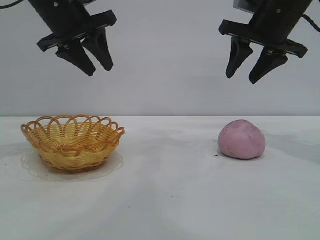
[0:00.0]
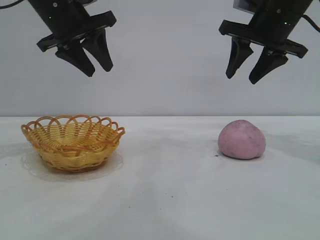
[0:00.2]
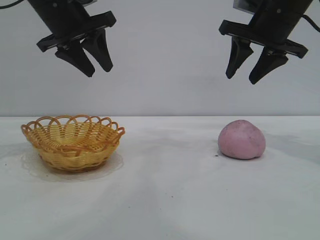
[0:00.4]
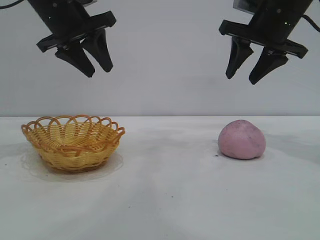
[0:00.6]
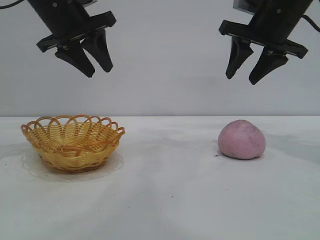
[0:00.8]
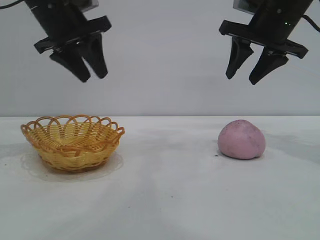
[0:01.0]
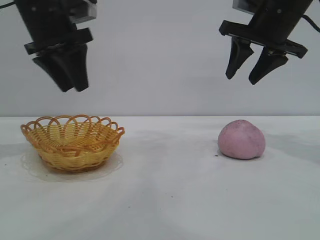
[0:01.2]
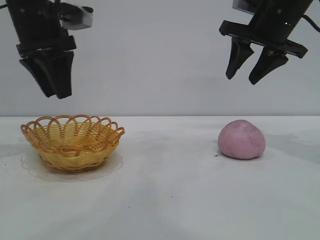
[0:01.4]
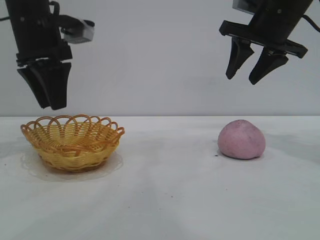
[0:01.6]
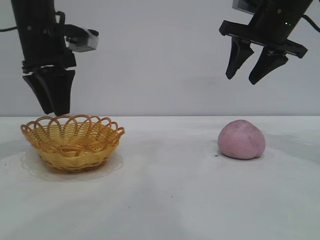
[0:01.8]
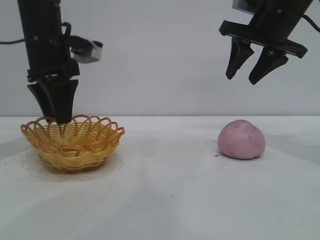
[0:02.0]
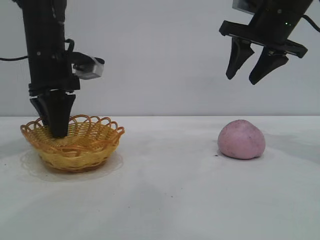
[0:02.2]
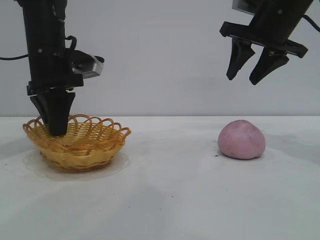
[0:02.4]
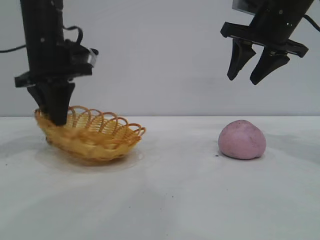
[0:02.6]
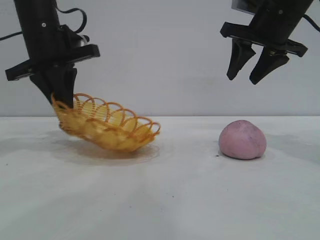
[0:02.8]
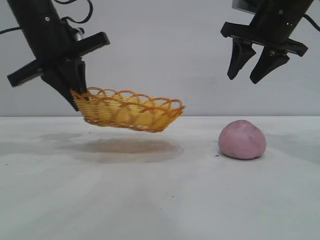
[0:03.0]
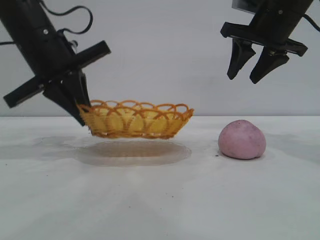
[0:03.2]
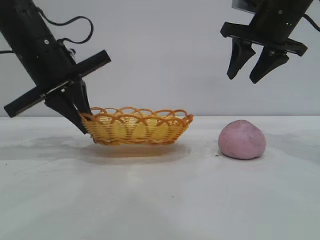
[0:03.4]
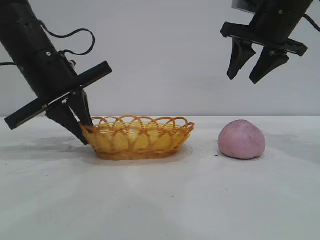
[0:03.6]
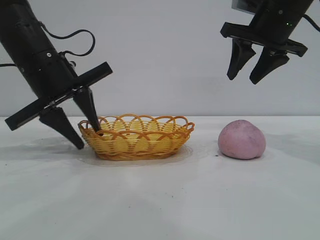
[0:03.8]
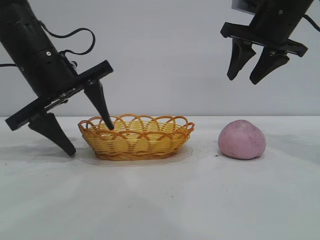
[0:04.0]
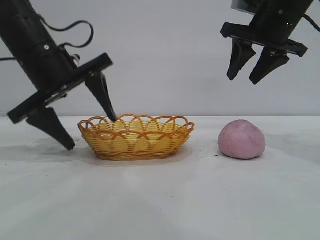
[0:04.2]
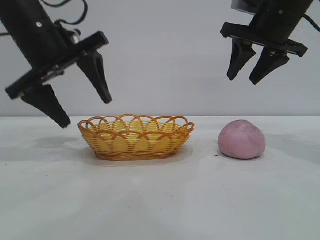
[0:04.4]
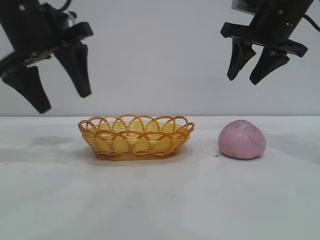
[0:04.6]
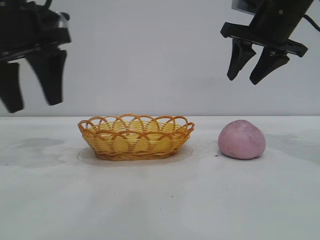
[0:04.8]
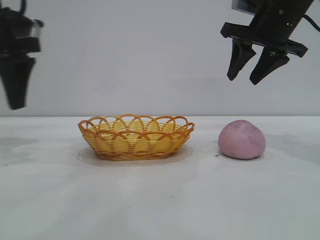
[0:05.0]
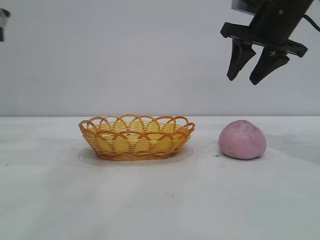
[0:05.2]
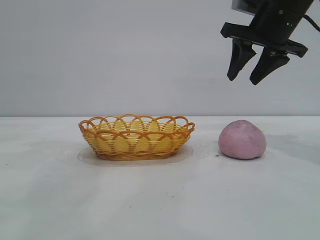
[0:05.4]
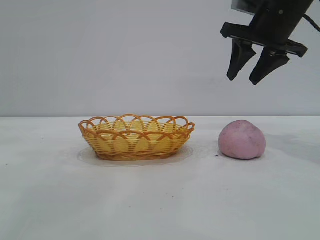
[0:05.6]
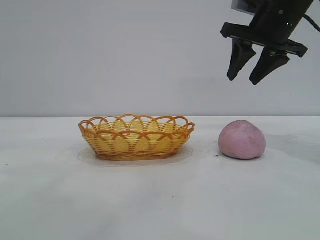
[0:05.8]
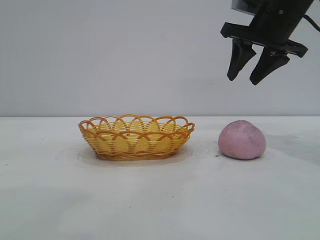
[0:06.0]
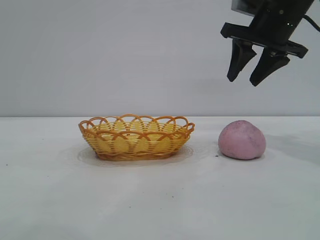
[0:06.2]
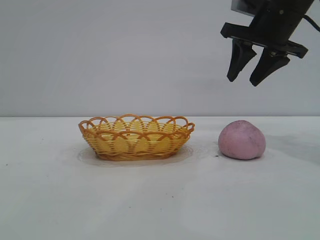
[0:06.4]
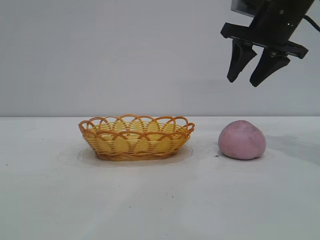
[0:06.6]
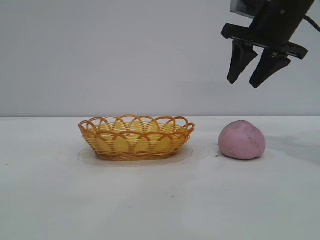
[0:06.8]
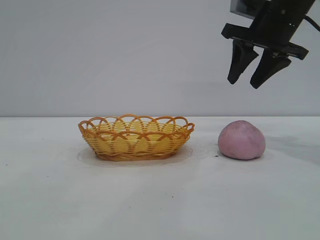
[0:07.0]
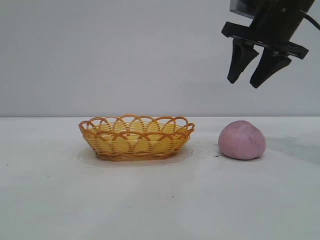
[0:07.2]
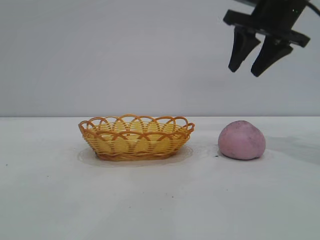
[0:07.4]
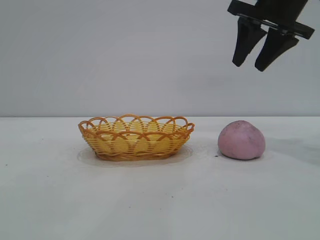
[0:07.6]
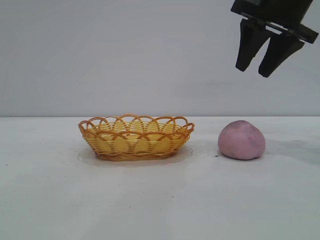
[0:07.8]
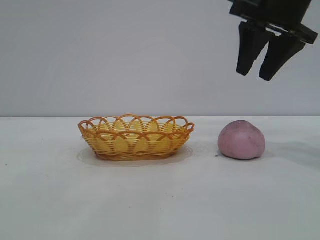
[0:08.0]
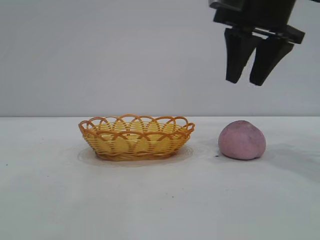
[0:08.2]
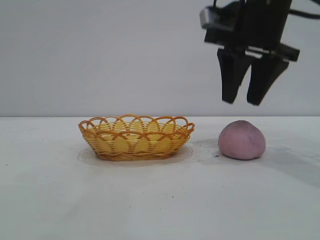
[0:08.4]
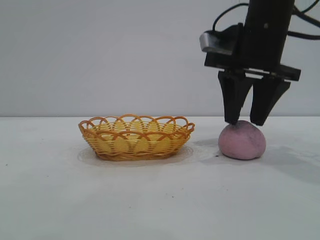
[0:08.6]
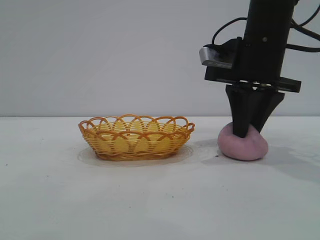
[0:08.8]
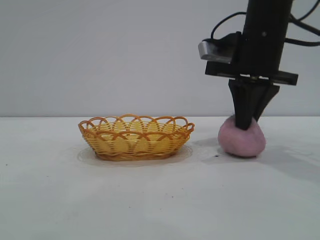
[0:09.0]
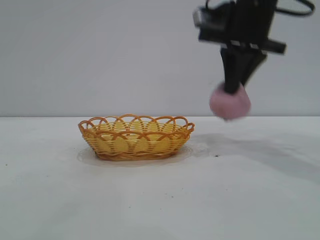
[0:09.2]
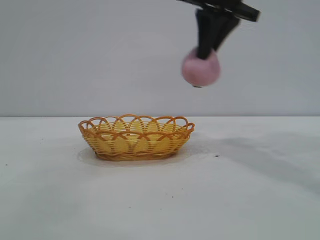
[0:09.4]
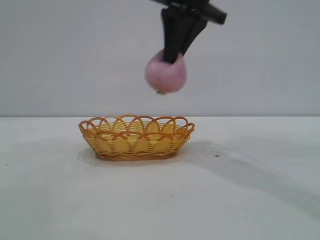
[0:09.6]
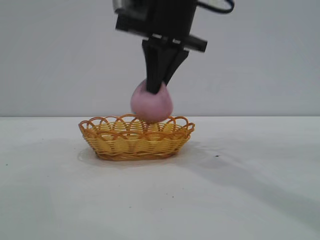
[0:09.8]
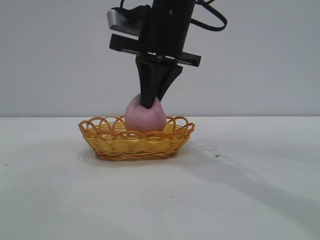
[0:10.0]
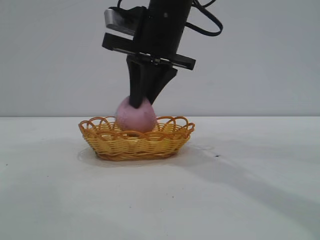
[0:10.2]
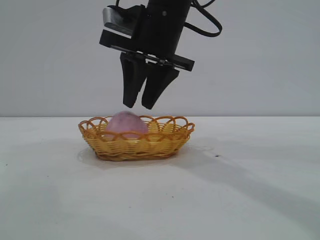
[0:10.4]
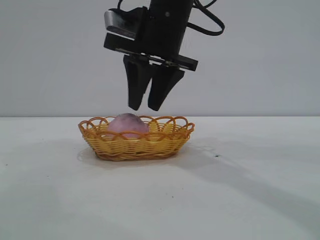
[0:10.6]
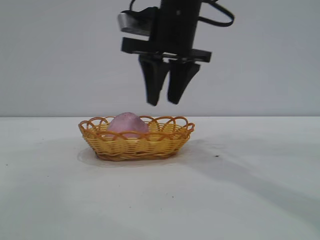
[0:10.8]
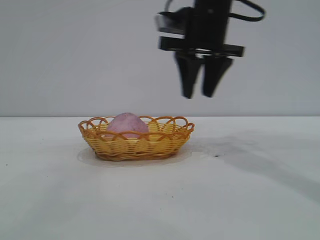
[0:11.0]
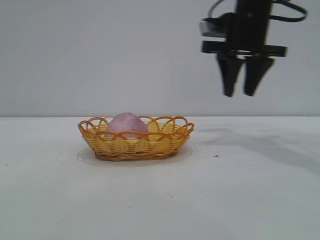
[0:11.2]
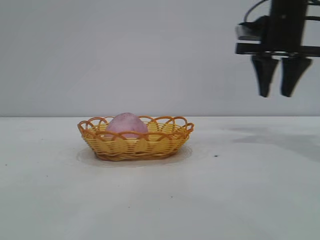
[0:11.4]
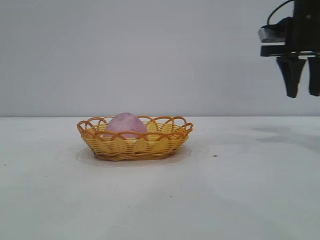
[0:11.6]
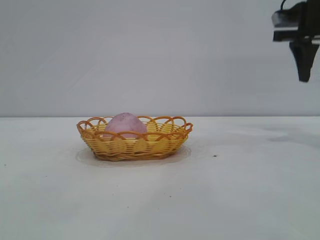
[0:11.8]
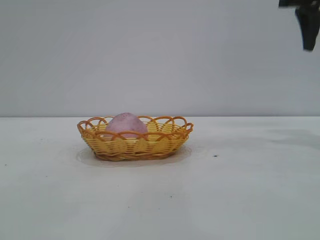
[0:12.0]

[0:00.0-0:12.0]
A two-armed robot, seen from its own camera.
Task of the whole recording: pick up the peach and put it into the basket.
Step, 0:00.0 to 0:04.6: Move the basket to the center of view.
Step, 0:04.8 to 0:09.2: Pick up the peach.
Step, 0:09.4 to 0:10.8: place the peach into the basket.

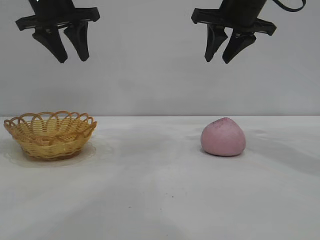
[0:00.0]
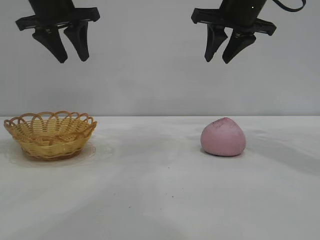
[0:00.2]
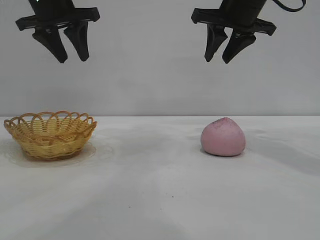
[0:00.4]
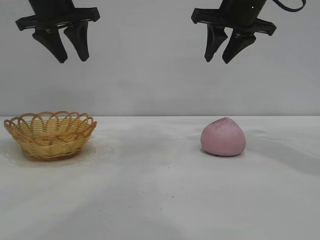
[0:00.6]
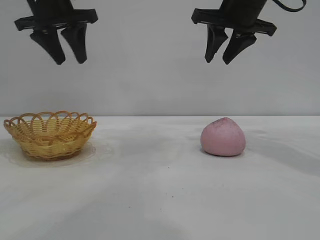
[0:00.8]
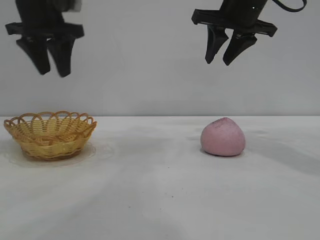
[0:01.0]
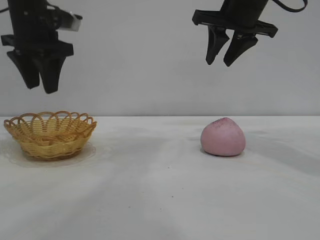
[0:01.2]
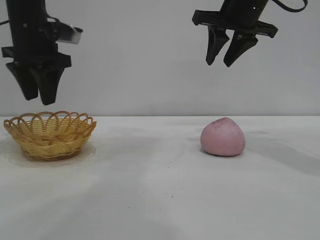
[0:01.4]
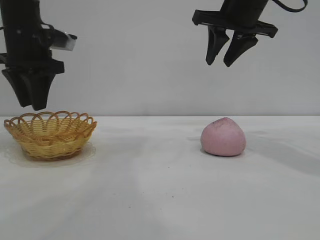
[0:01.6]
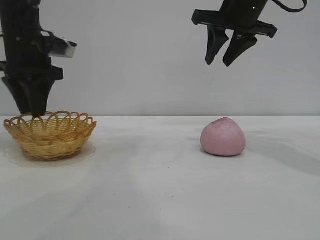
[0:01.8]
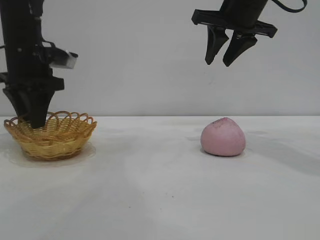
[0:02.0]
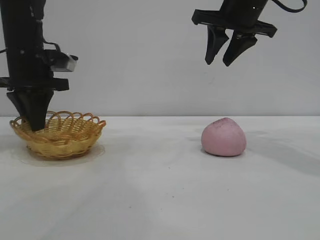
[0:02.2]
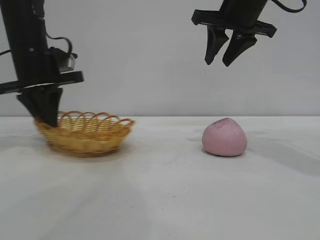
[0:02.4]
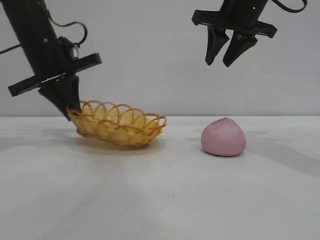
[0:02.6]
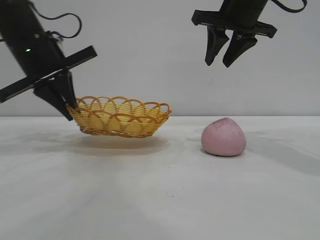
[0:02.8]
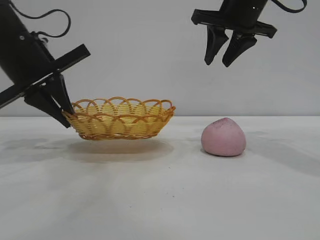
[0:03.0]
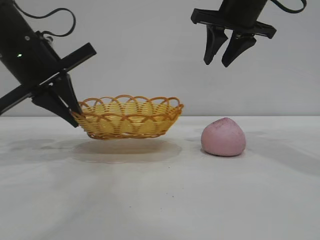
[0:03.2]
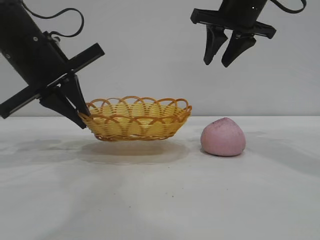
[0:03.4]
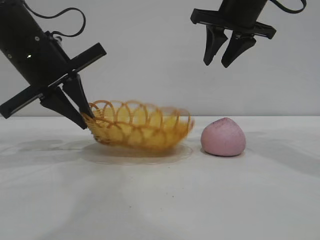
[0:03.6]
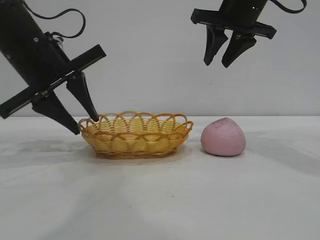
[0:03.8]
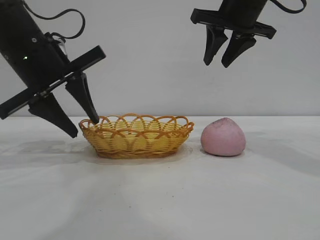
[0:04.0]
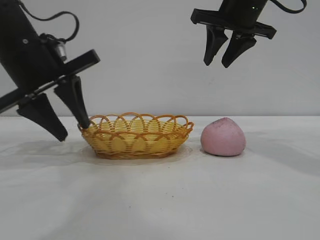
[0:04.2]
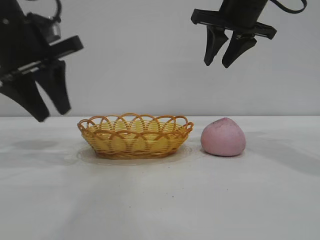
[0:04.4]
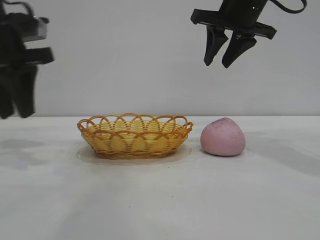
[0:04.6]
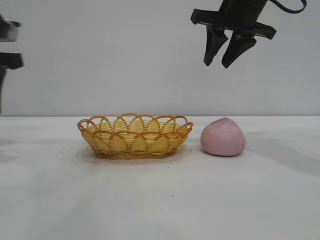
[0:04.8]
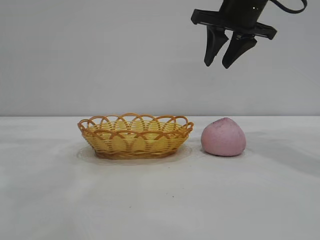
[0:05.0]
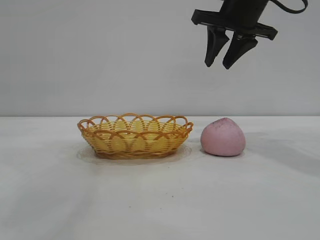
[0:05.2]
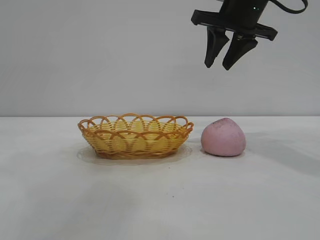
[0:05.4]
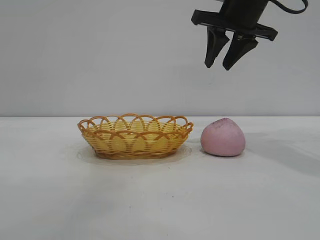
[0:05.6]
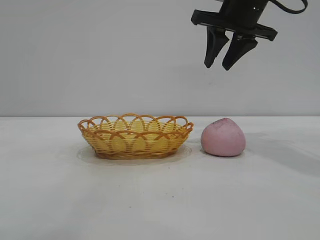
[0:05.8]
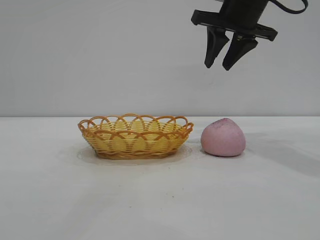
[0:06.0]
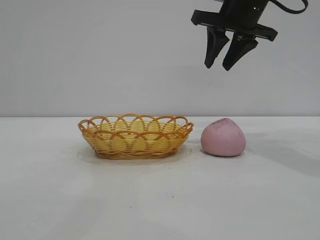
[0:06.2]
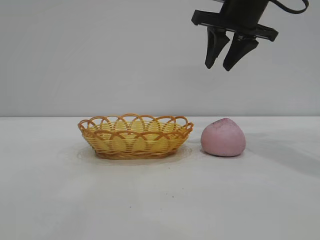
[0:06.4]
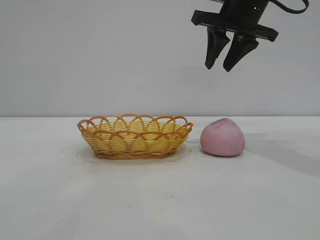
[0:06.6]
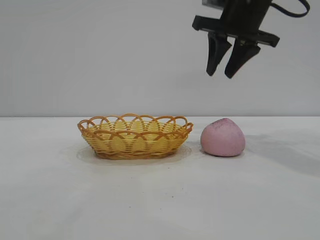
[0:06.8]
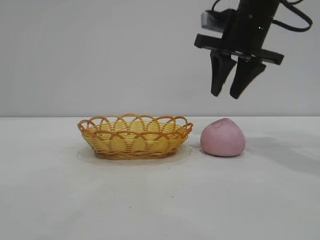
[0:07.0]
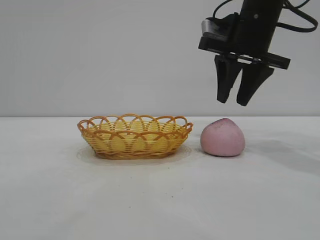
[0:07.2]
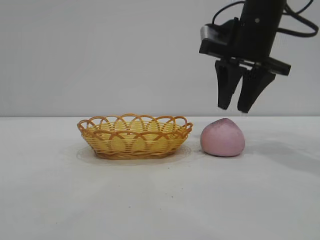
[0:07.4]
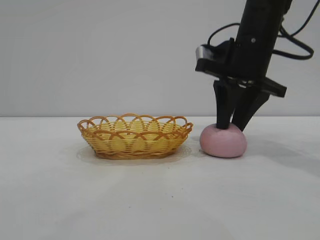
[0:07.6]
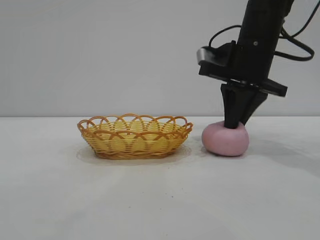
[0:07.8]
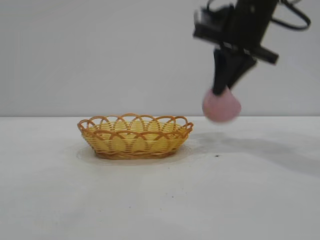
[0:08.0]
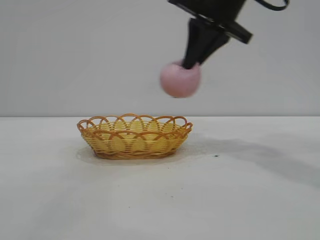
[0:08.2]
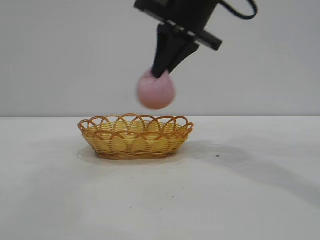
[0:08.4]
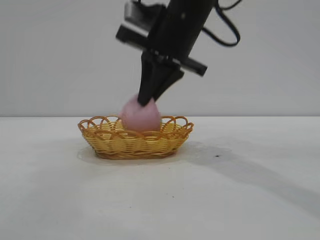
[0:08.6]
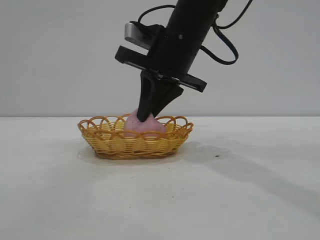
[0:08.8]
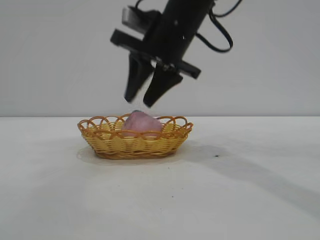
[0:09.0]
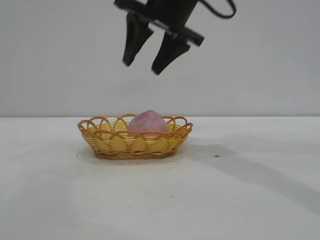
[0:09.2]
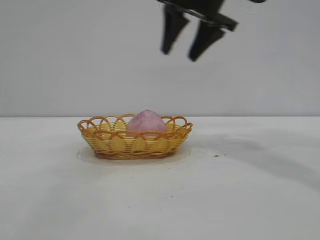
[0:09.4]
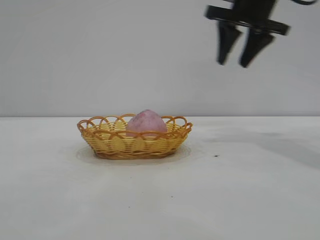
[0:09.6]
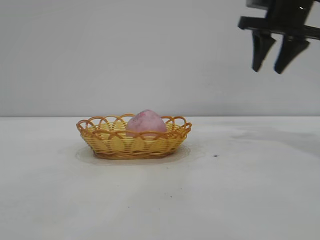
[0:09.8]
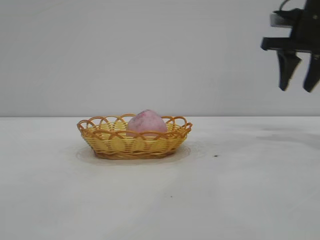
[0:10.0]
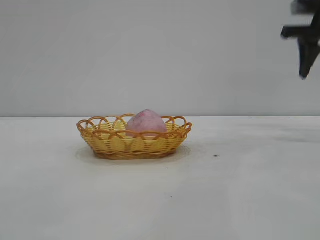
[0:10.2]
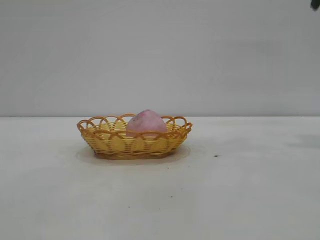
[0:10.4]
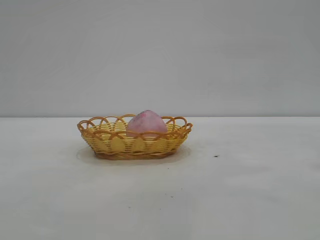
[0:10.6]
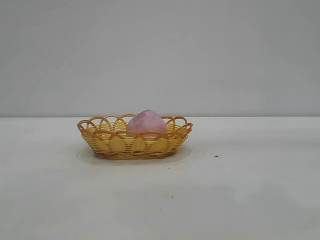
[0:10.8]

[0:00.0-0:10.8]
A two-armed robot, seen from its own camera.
Task of the whole recording: pick up the peach and put it into the basket.
Step, 0:00.0 to 0:04.2: Move the basket to the center of view.
Step, 0:04.4 to 0:08.0: Pick up the peach.
Step, 0:08.2 to 0:09.0: place the peach into the basket.
